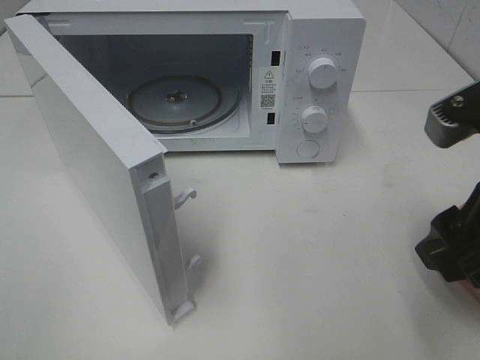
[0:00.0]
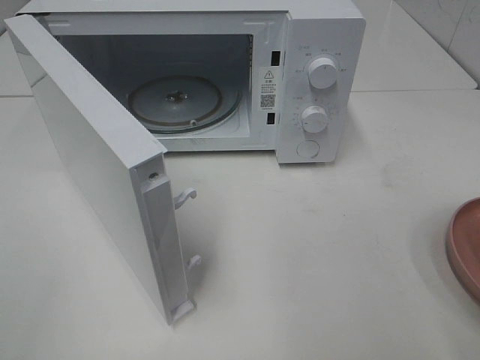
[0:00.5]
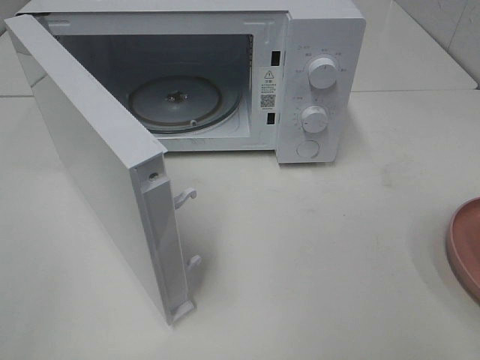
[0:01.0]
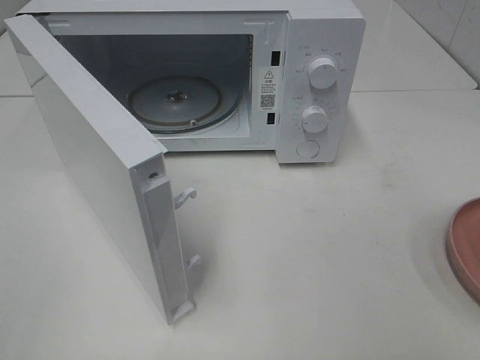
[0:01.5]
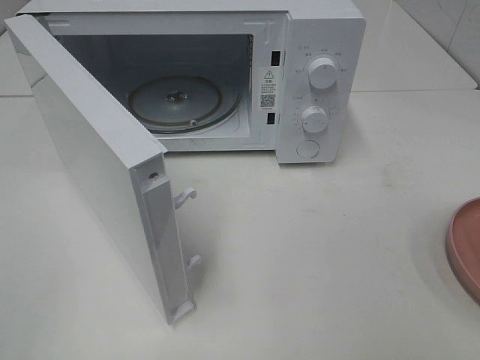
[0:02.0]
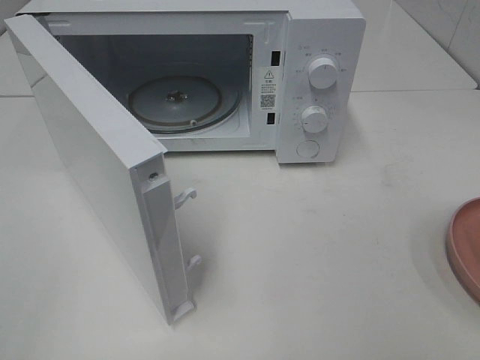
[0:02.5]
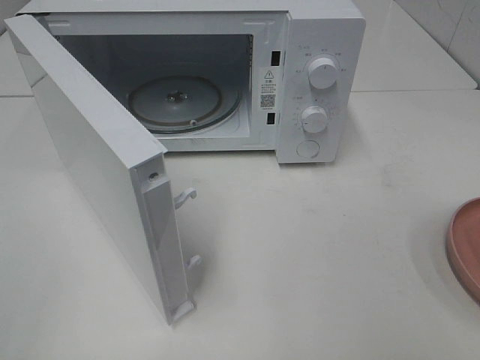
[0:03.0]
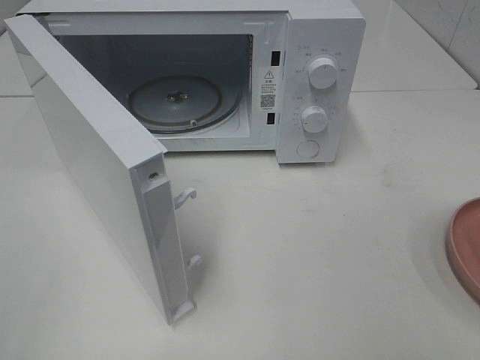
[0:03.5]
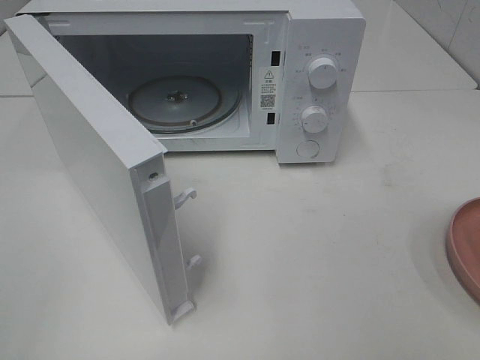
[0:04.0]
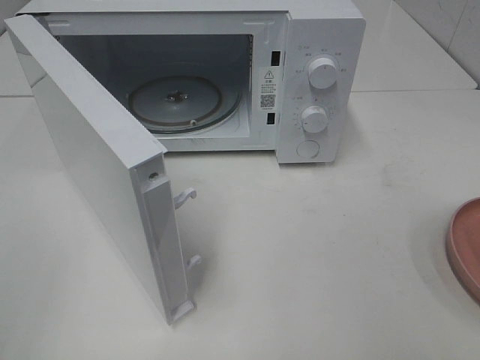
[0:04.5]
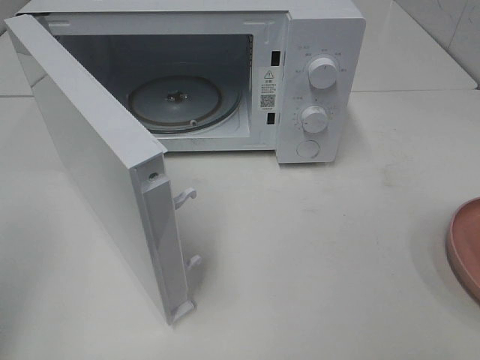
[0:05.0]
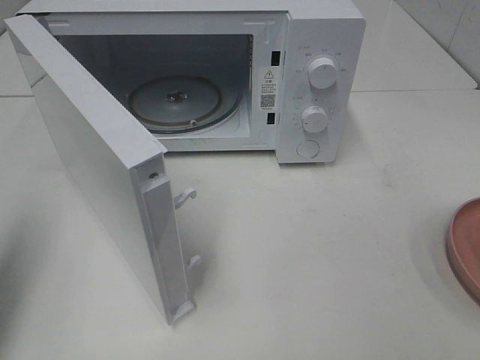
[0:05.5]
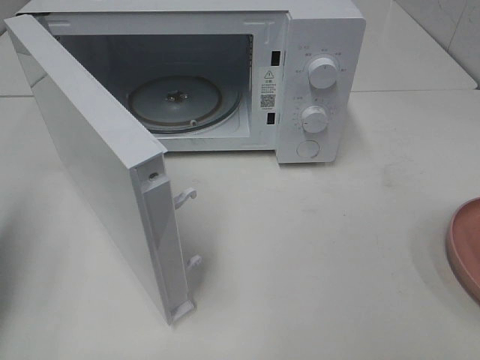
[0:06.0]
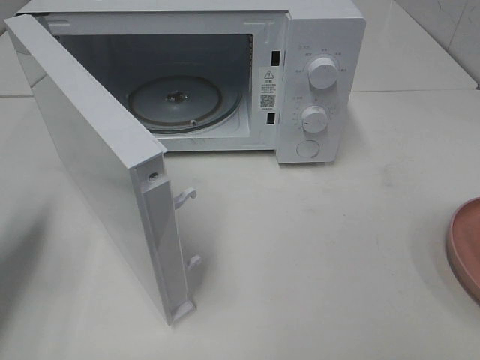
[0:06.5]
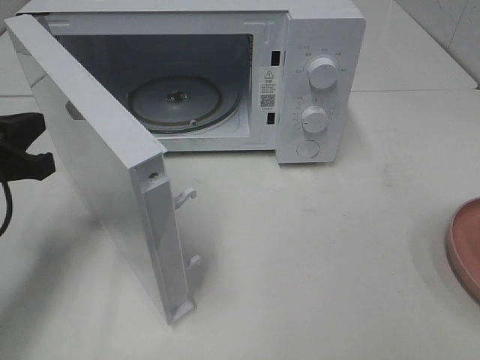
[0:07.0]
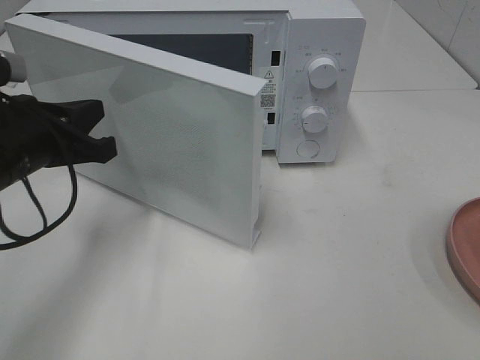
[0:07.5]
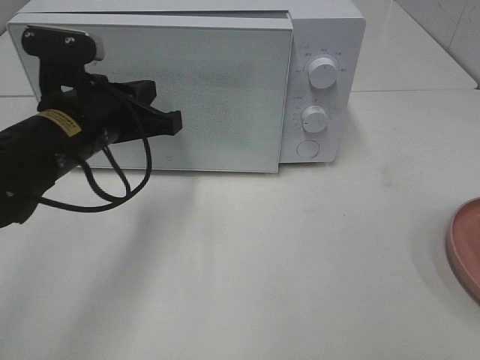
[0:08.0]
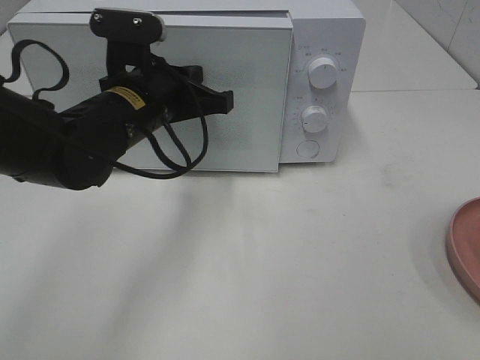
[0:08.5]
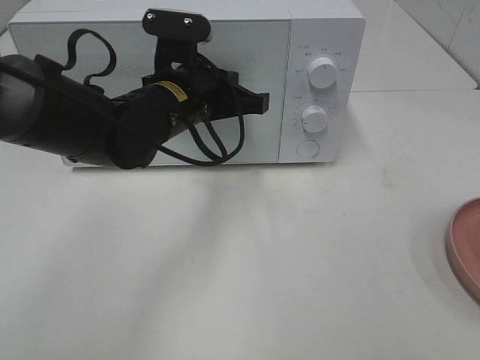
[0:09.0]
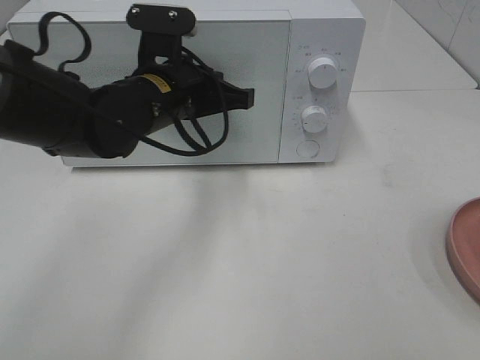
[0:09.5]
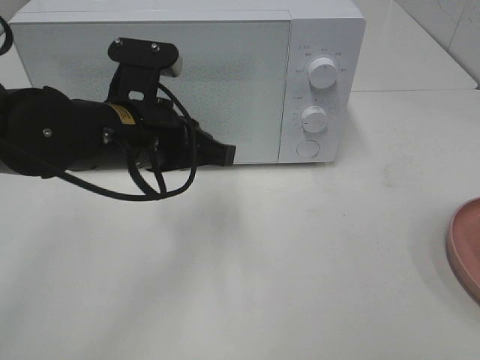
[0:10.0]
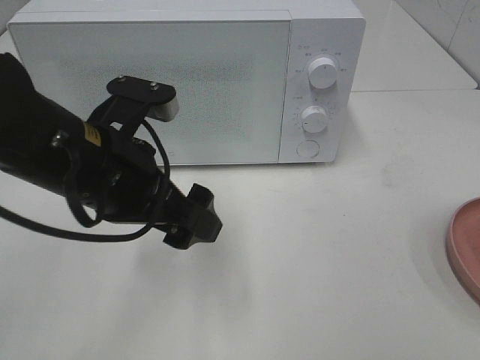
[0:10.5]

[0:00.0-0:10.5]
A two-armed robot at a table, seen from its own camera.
Task of the whole recording: Heat the burger.
Step, 0:00.0 to 0:09.5: Left hand: close the microwave door.
0:00.0 to 0:02.0: The right gripper moves backward and to the right, roughly 15 cm.
0:02.0 to 0:04.0: Neither gripper changes place.
0:04.0 to 0:06.5: The left gripper is displaced forward by approximately 20 cm, and closes up.
0:06.5 to 0:08.5: The left gripper travels to the right and forward by approximately 25 cm.
0:08.5 to 0:10.5: The left gripper travels backward by approximately 10 cm, and opens.

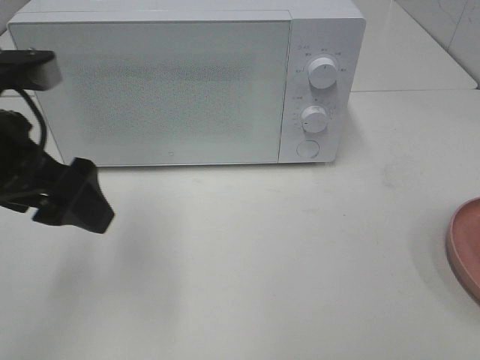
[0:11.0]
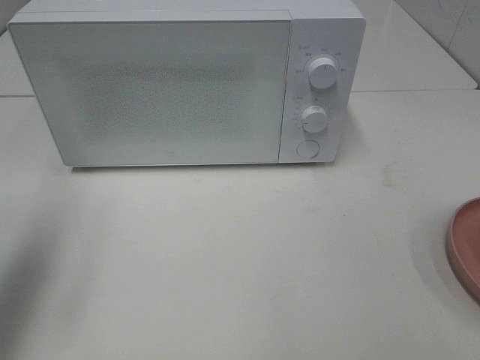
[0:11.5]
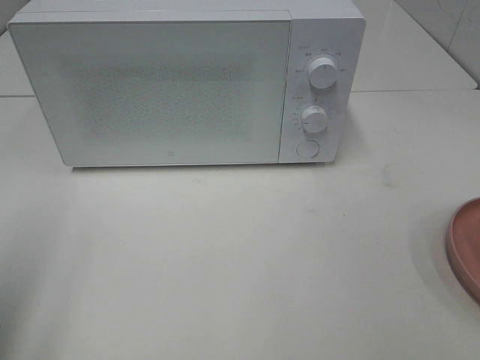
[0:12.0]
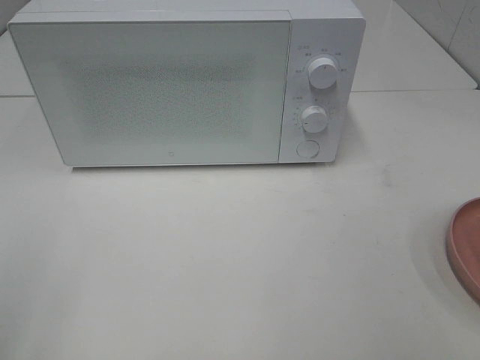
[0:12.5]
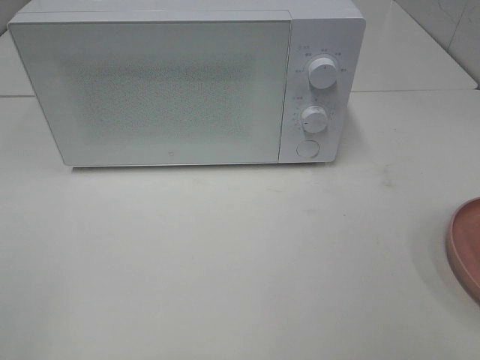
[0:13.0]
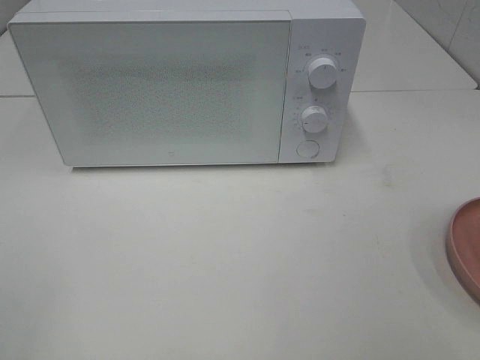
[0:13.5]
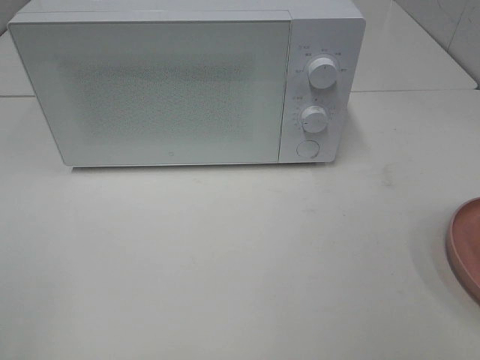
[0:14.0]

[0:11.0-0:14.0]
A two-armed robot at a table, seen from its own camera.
Task of the whole recording: Heat the burger.
0:11.0 to 0:12.5: The left gripper goes about 20 cm backward and to the left.

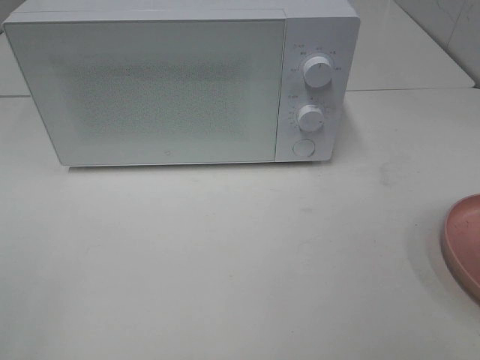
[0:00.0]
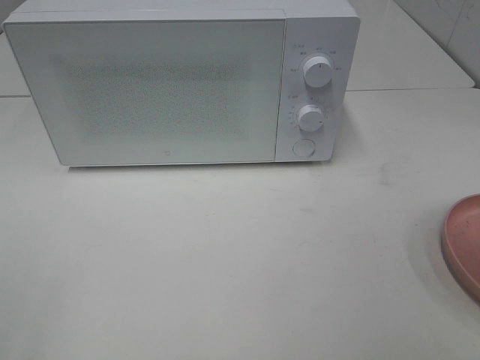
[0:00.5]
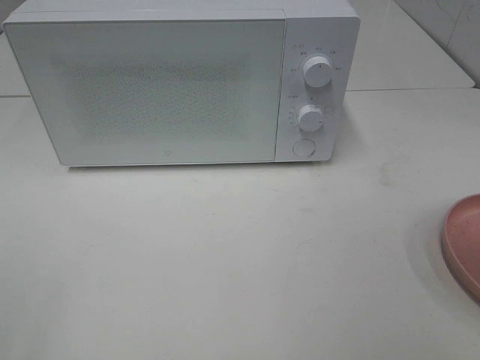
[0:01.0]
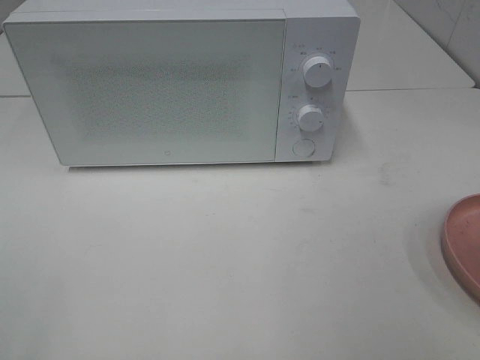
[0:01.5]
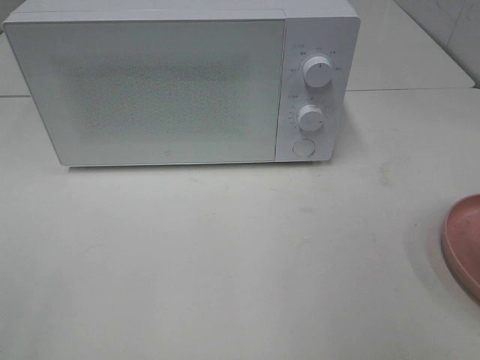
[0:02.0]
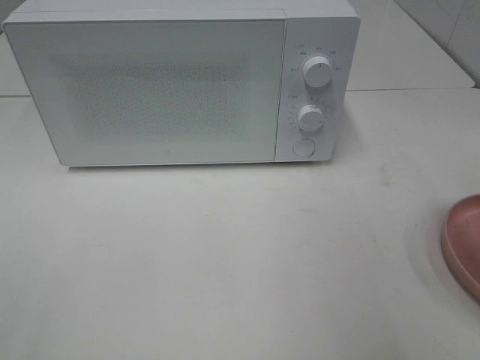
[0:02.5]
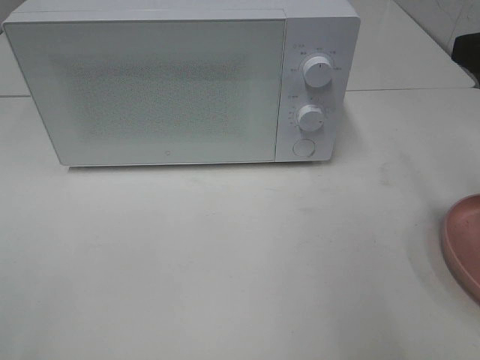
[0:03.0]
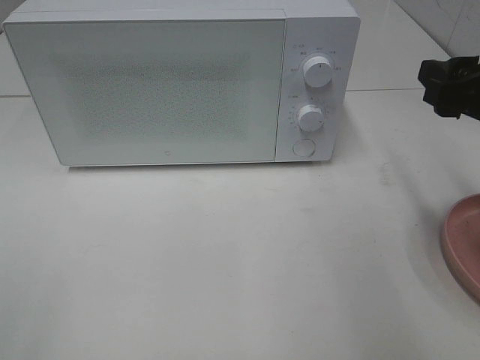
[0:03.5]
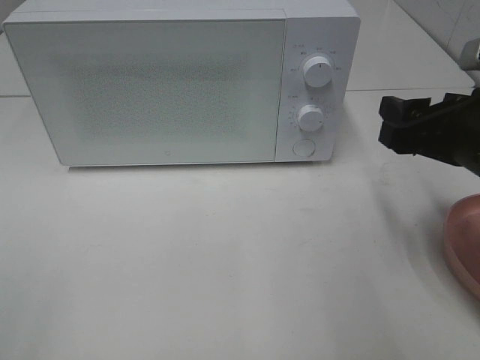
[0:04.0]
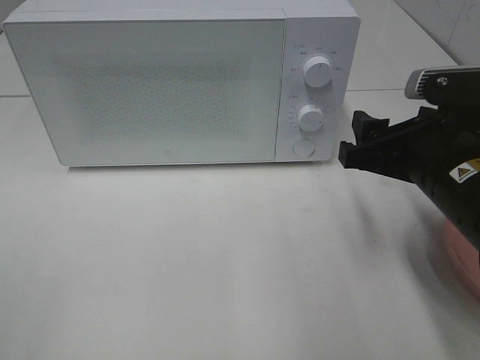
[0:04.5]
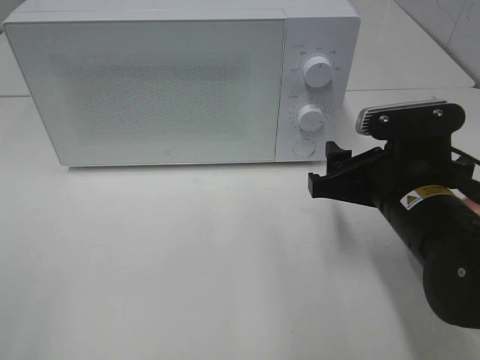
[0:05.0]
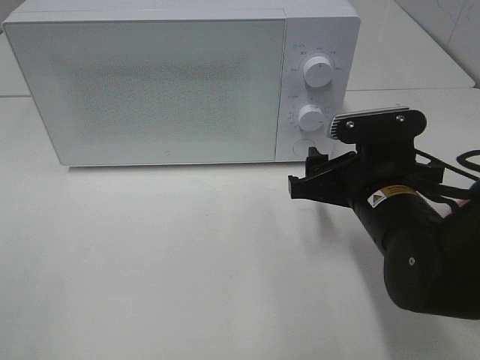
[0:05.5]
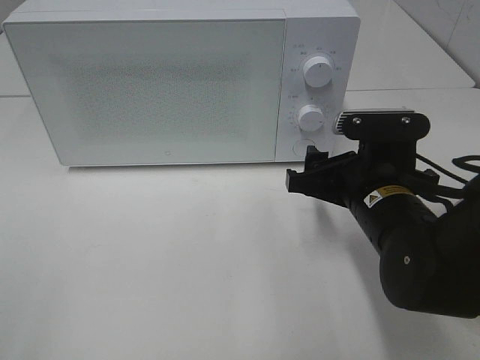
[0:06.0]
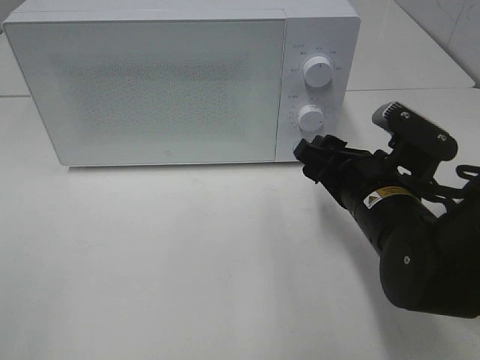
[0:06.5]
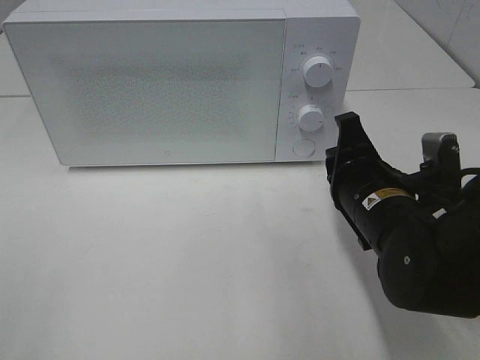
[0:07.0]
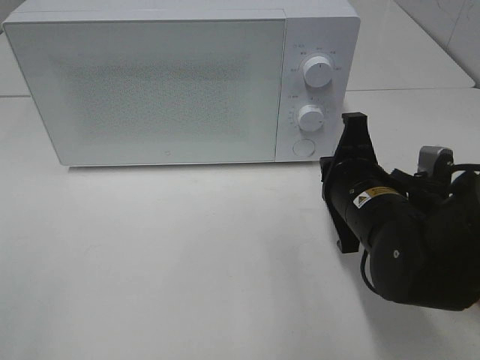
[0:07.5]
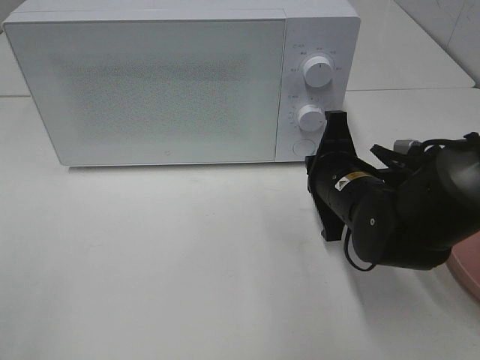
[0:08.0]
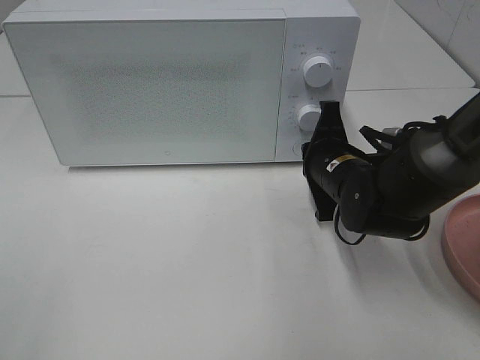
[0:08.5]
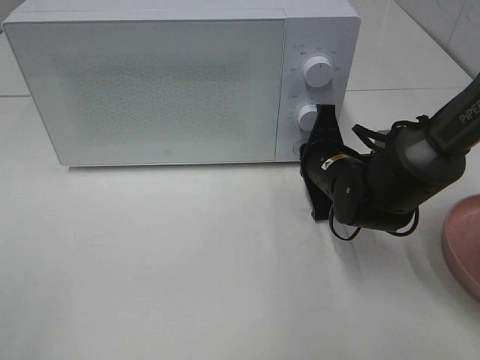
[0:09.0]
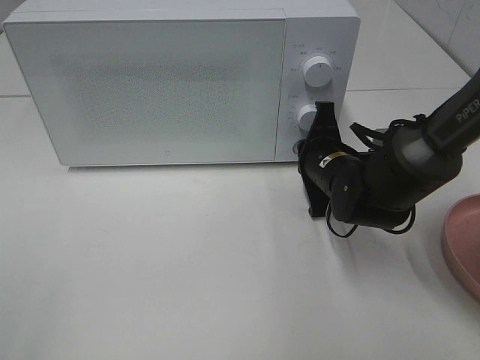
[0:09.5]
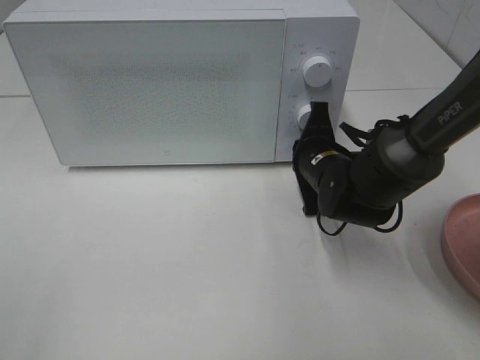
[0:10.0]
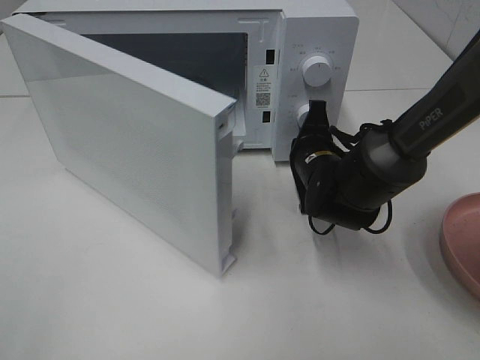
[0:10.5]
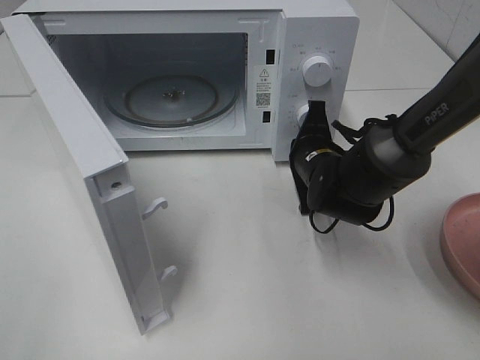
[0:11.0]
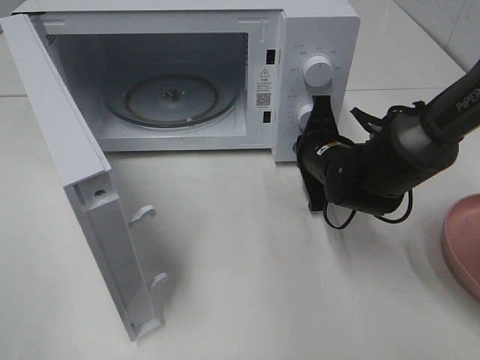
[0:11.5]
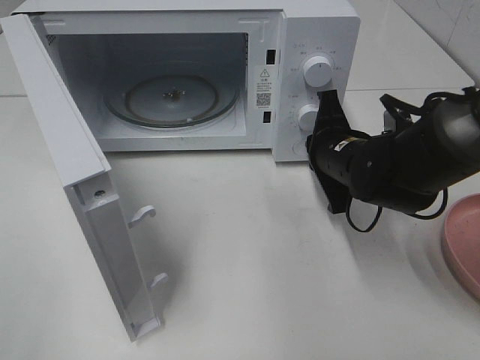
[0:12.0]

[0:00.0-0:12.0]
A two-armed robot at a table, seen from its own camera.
Task of the whole recording: Heat the burger.
Step, 0:00.0 to 0:12.0: Right hand: press the switch.
0:02.0 to 0:04.0: The right gripper heads forward and downward, covering about 15 cm.
0:04.0 to 0:06.0: The right gripper travels to the left and downward by approximately 10 cm.
0:06.0 to 0:08.0: The right gripper moves about 5 cm, and closes up.
0:08.0 to 0:10.0: The right gripper heads forward, covering approximately 5 cm.
